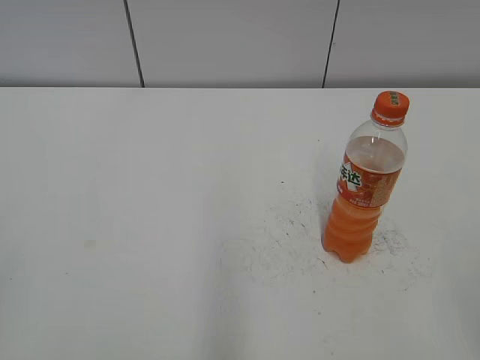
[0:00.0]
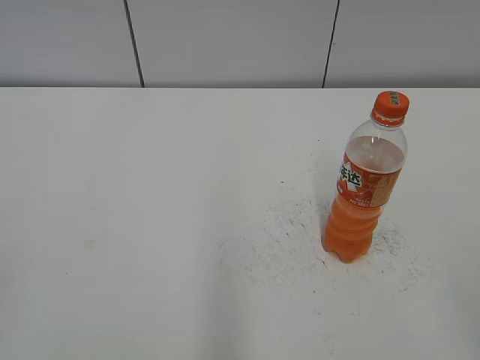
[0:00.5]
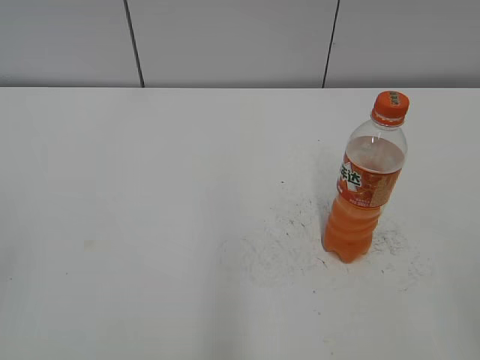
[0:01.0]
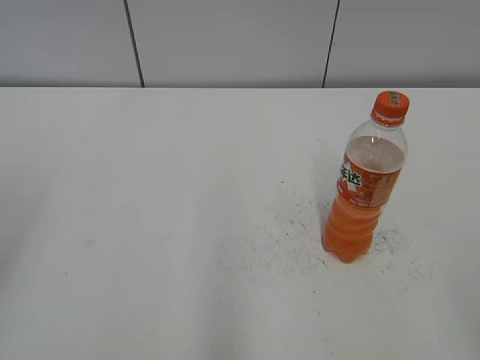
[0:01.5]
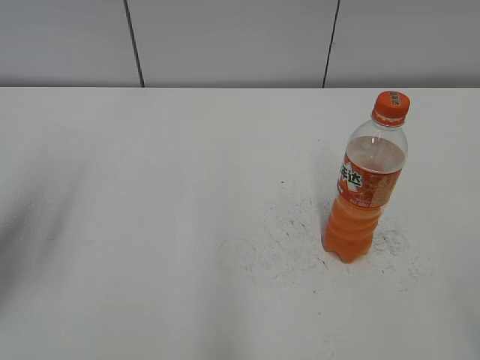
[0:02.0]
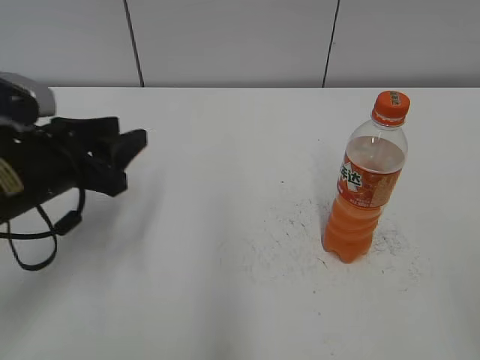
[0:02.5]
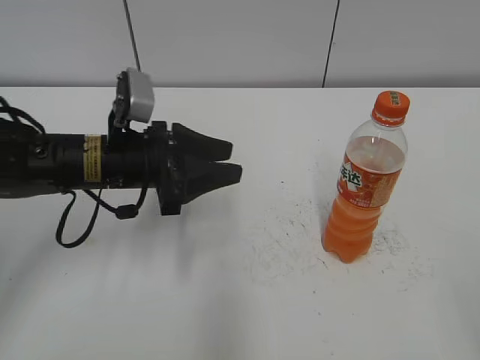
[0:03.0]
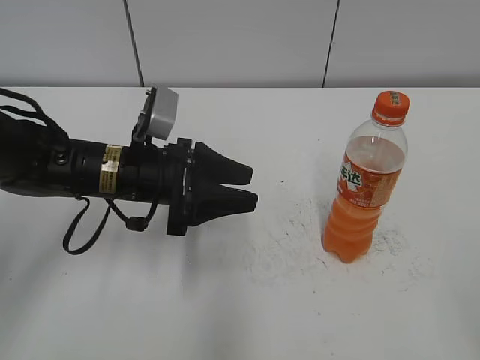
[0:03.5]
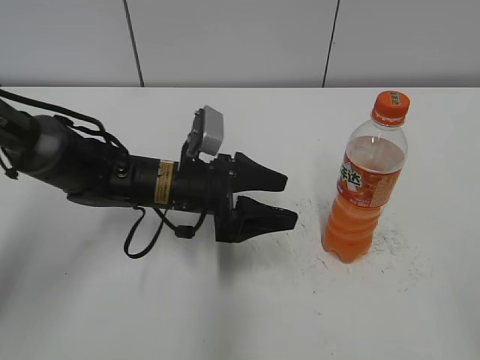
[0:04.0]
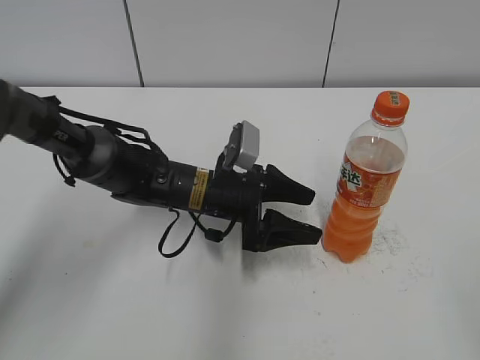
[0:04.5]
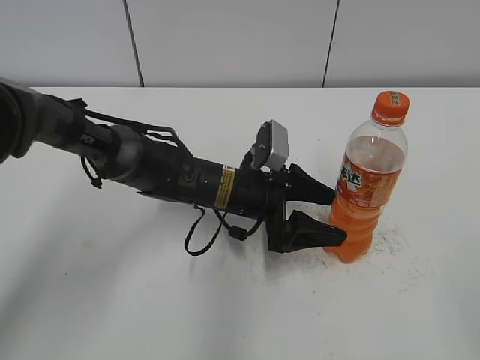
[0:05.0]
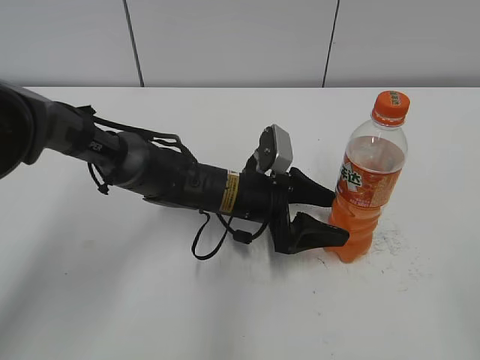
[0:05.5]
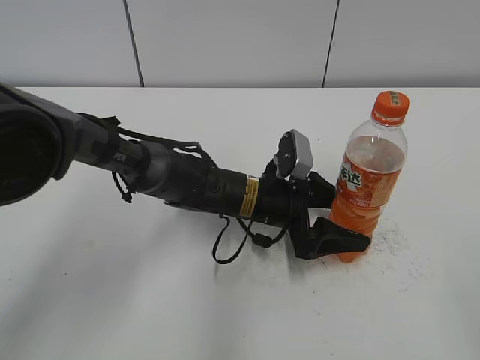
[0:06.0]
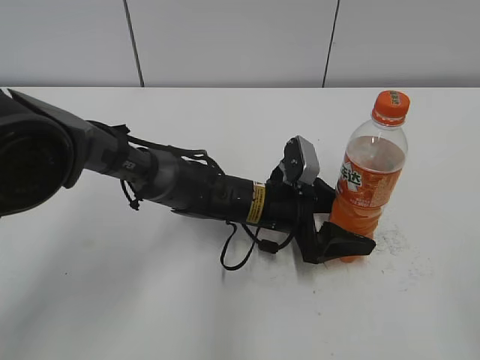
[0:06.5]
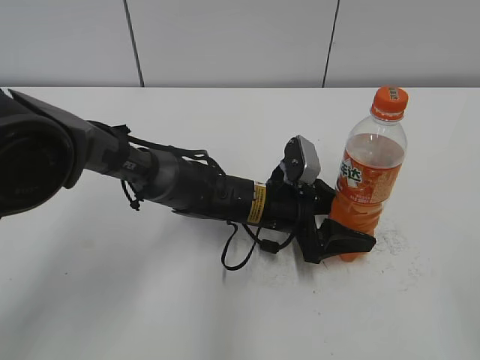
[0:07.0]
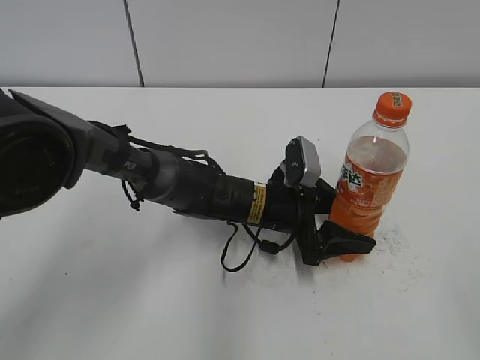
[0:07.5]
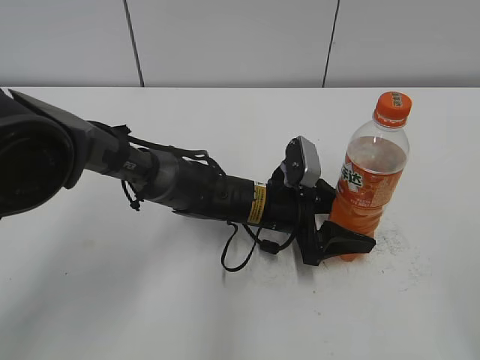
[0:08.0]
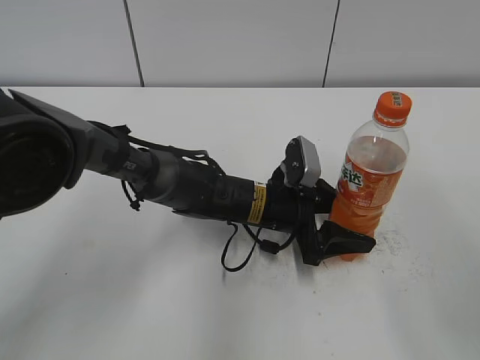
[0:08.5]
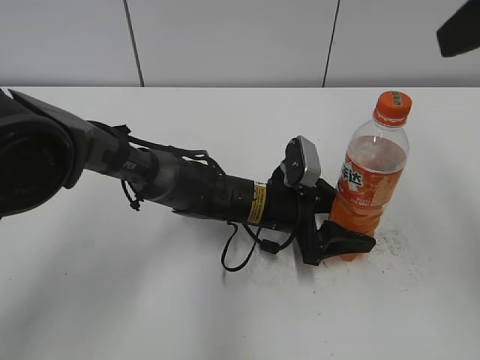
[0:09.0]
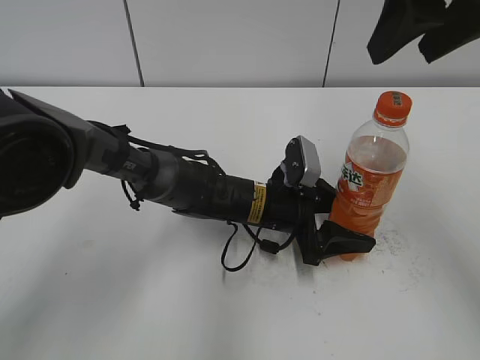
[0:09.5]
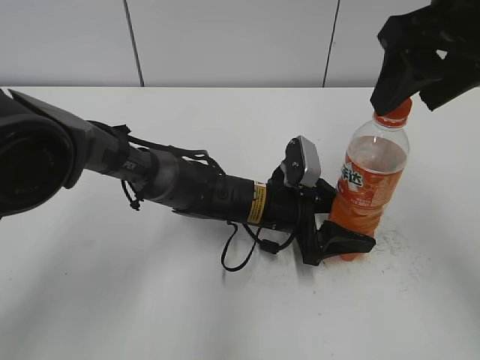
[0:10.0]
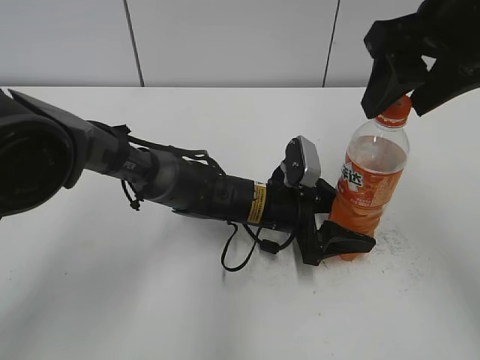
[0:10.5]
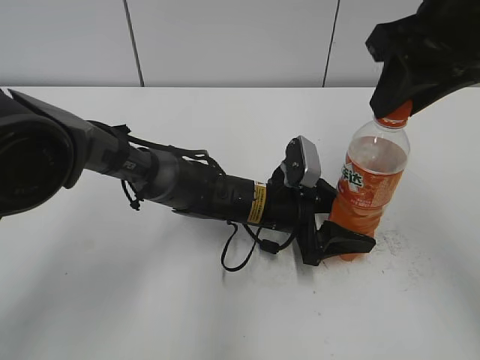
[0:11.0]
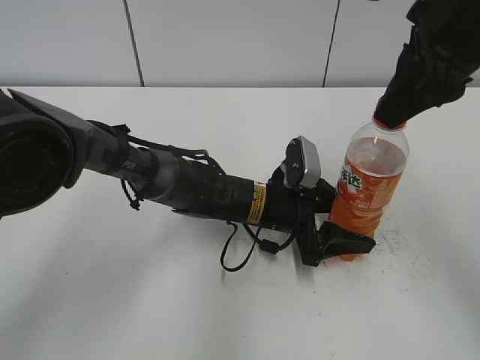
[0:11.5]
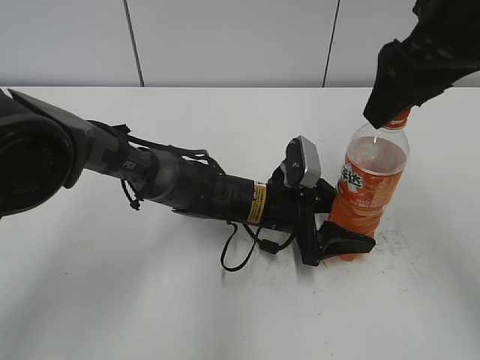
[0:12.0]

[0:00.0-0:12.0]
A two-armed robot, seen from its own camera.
Step, 0:00.0 to 0:07.0: Grab the Mirinda with the left hand.
0:02.0 to 0:04.0: The left gripper moves to the right, downward and forward, about 30 cm, and opens.
0:04.0 to 0:06.0: The left gripper shifts some 10 cm to the right.
0:06.0 to 0:08.0: The left gripper closes its fingers.
0:08.0 to 0:10.0: The right gripper heads forward, covering about 25 cm.
0:10.0 to 0:12.0: The right gripper closes and opens again.

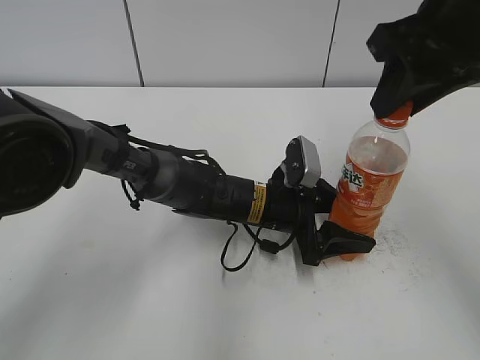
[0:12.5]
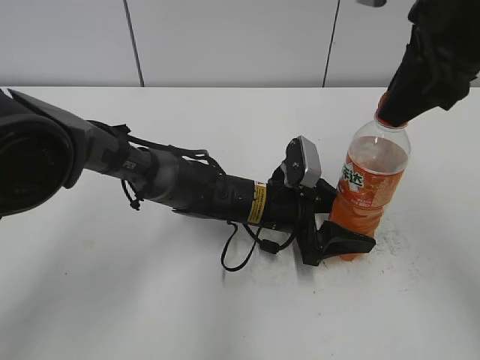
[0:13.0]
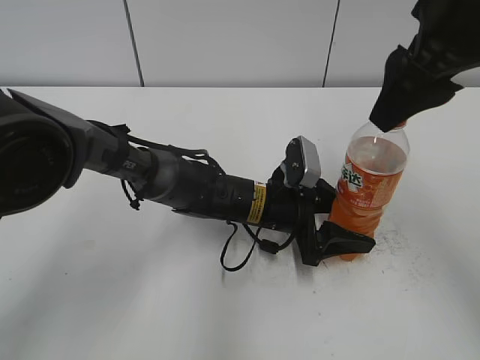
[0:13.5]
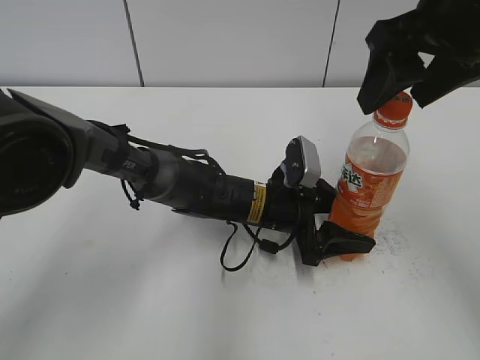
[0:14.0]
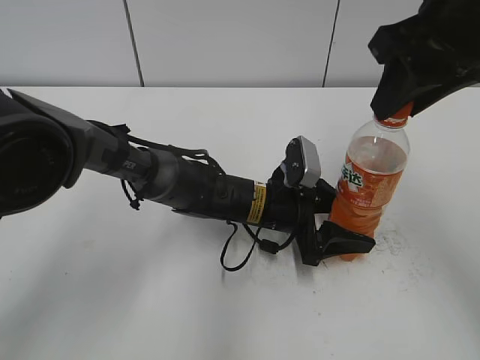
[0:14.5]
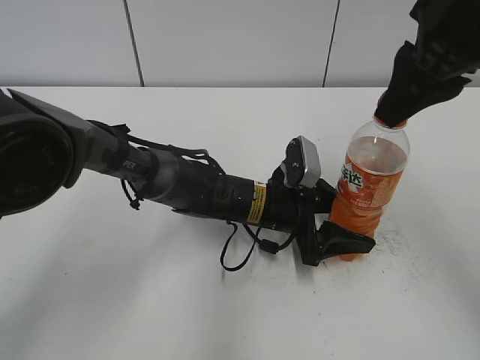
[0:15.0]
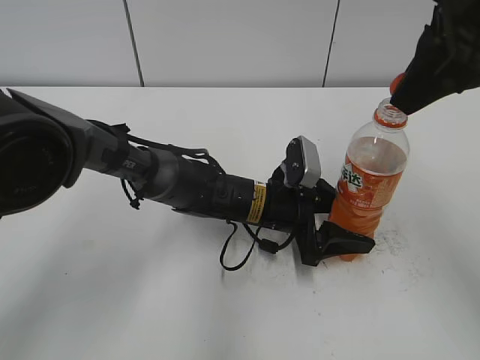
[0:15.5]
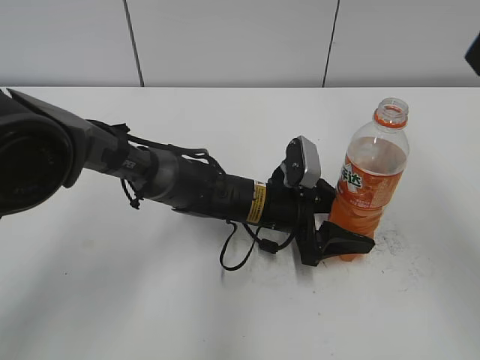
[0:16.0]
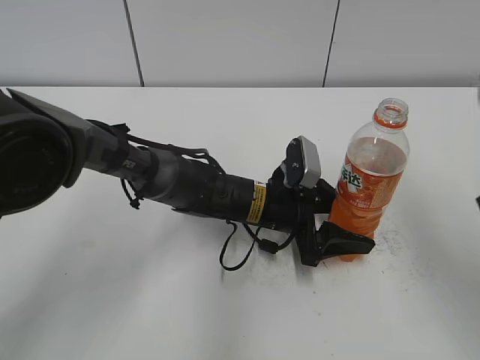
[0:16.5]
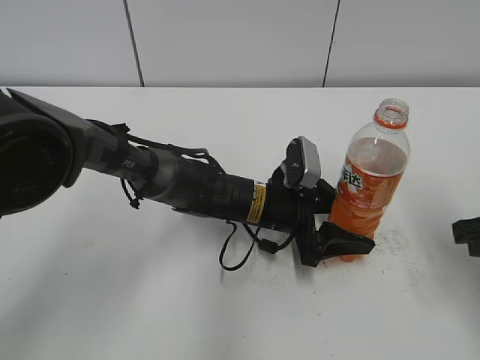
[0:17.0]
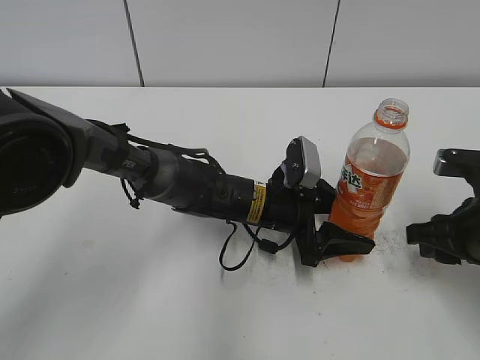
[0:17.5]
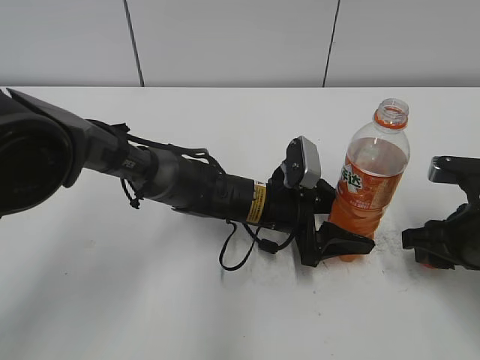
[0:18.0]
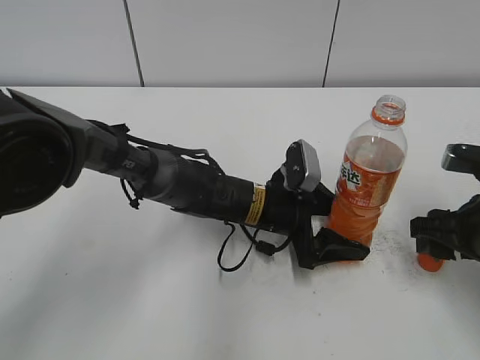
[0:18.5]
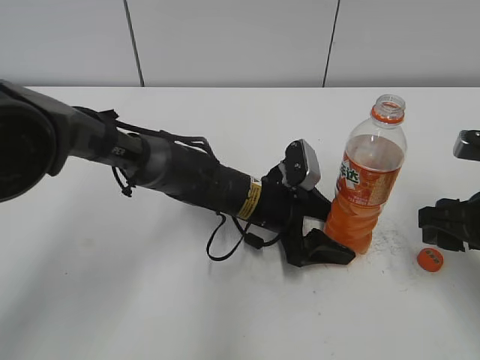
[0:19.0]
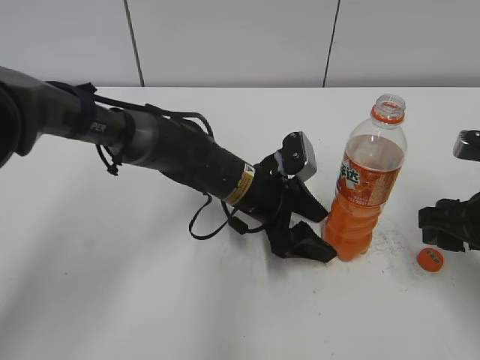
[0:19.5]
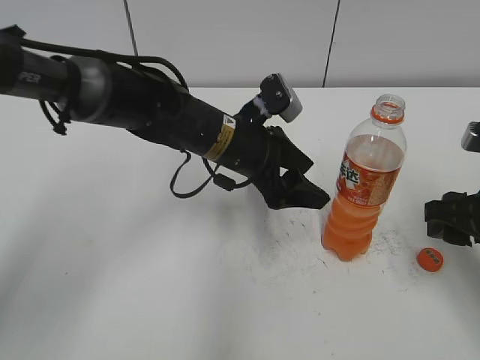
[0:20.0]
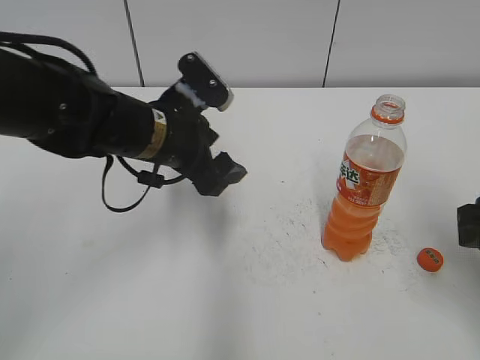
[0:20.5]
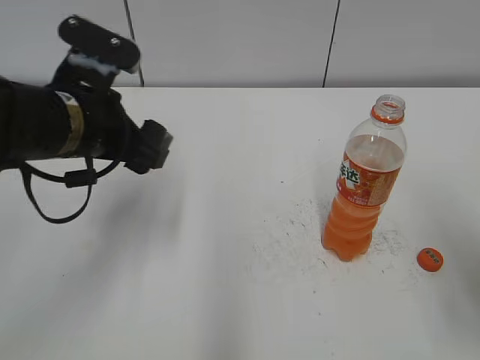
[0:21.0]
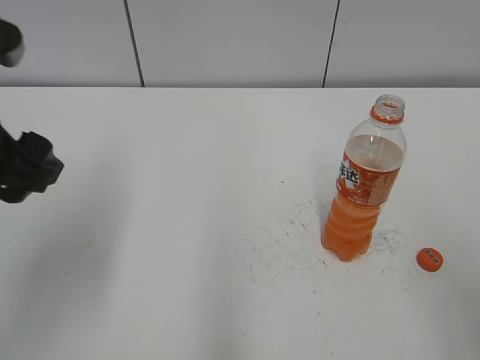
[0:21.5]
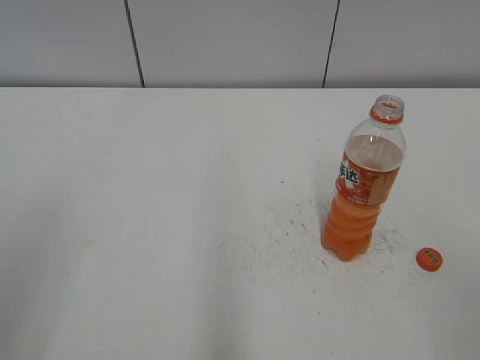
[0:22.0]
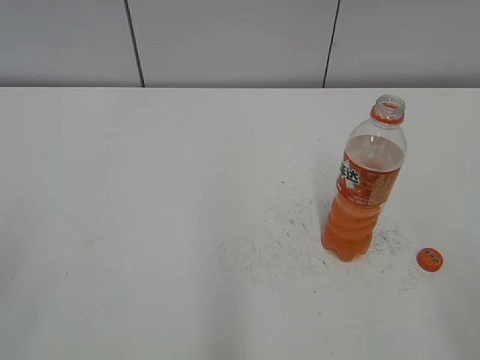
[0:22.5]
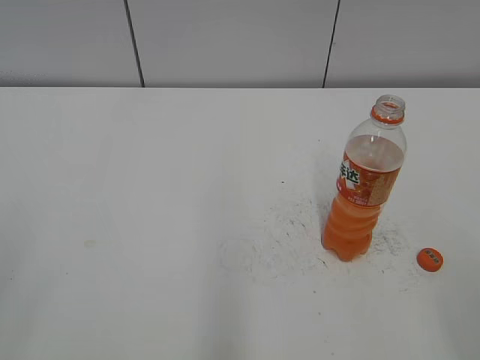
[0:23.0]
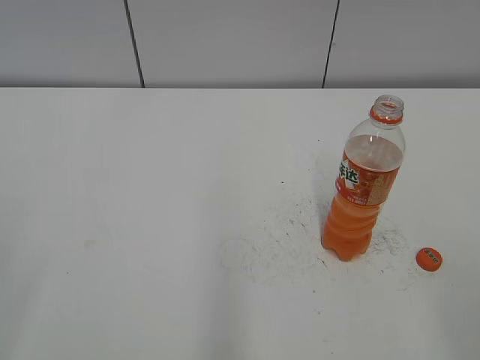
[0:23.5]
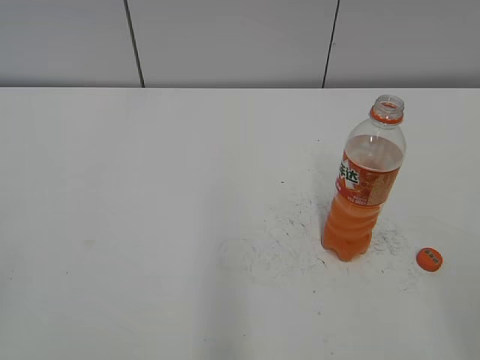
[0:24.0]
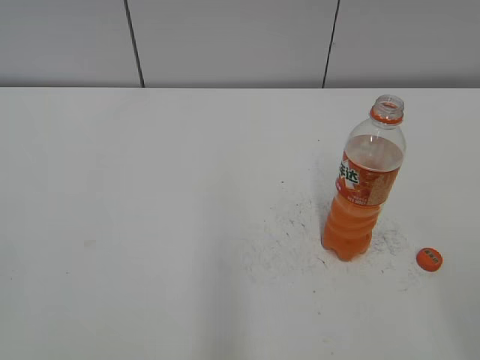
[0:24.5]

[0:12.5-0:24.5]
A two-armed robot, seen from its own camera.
Step, 0:12.5 to 0:15.5: Twist the bottle cap with the right hand.
Step, 0:16.0 to 0:19.0: Place the bottle cap on the table with the right hand.
0:14.5 to 0:16.5: The right gripper heads backward, to the right and downward, covering about 15 cm.
0:16.5 to 0:18.5: The right gripper travels downward by roughly 15 cm, and opens.
0:18.5 to 0:20.5: The right gripper moves upward, roughly 5 cm; the left gripper goes about 15 cm upward and to the left.
0:20.5 to 0:22.5: The left gripper travels backward and to the left by some 35 cm. The right gripper heads backward, covering about 20 cm.

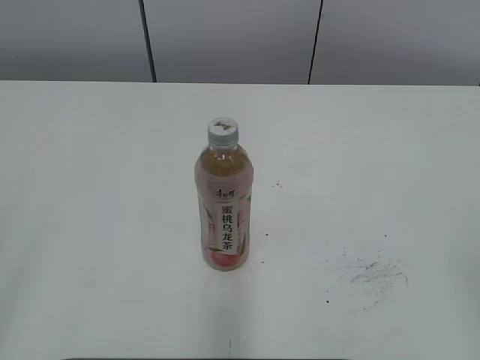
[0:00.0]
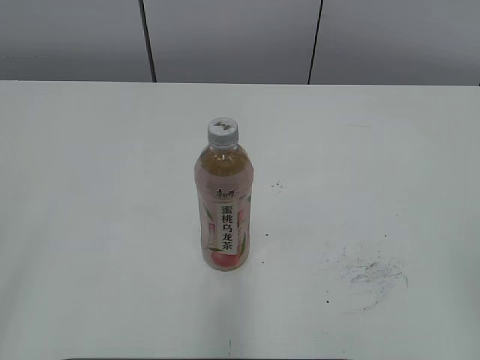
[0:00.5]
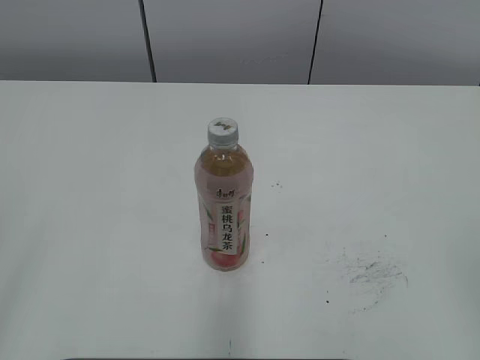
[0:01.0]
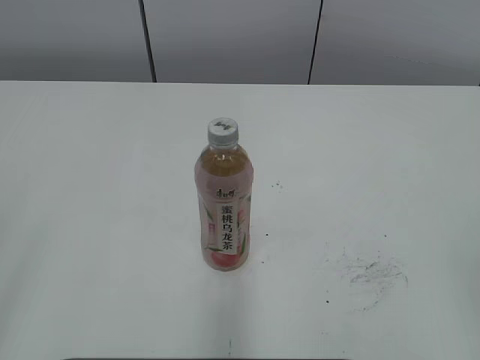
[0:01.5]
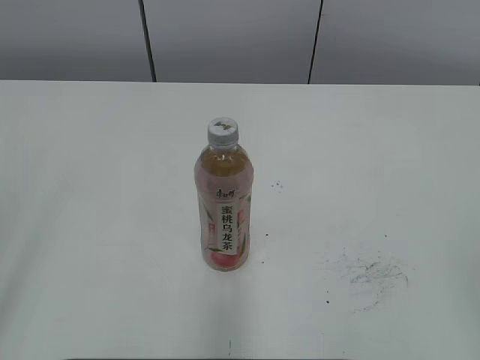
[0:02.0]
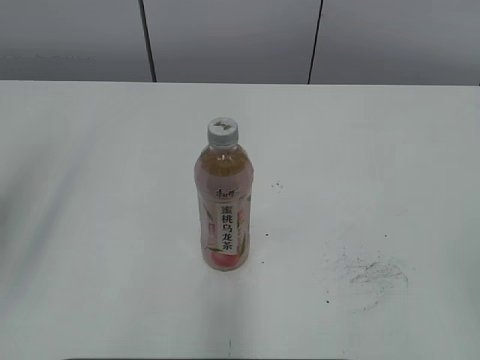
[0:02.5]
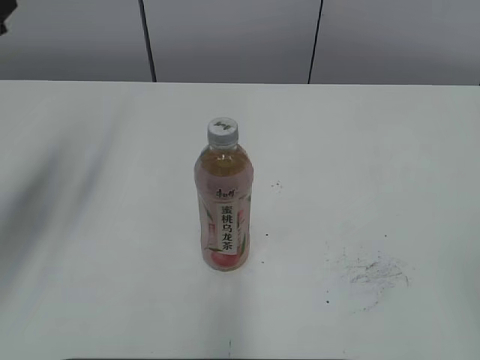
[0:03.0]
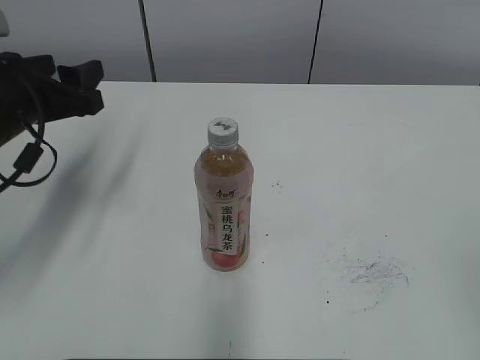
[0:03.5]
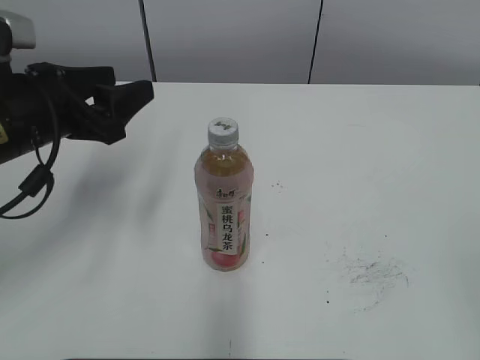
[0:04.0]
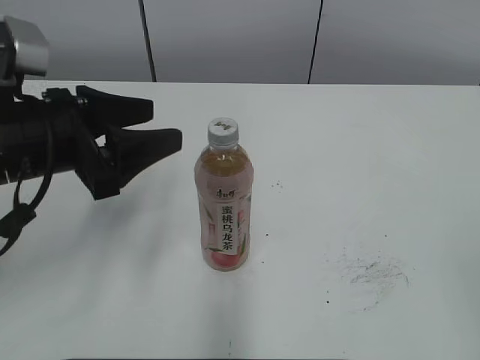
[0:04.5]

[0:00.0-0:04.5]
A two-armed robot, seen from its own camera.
0:02.0 to 0:04.5: The left gripper heads forward, to the right and downward, covering about 25 cm.
